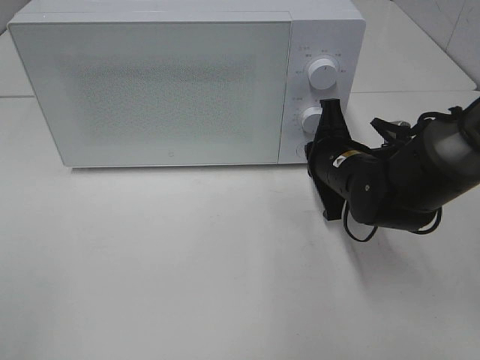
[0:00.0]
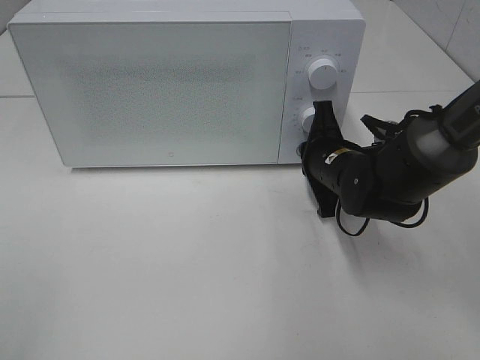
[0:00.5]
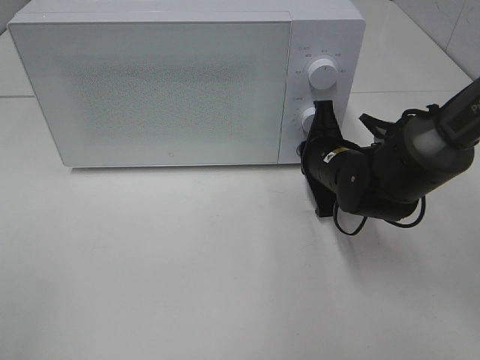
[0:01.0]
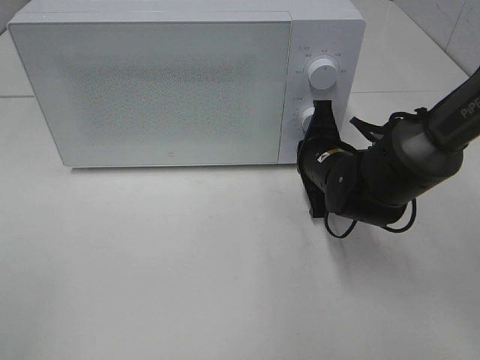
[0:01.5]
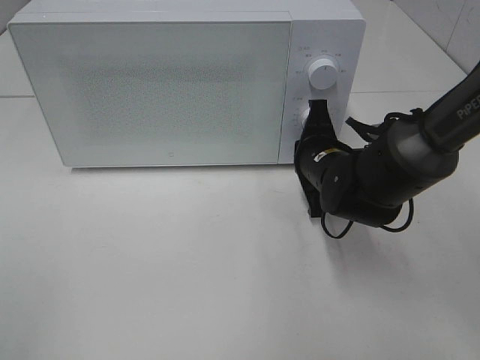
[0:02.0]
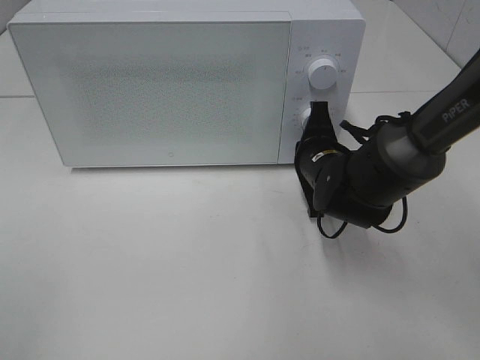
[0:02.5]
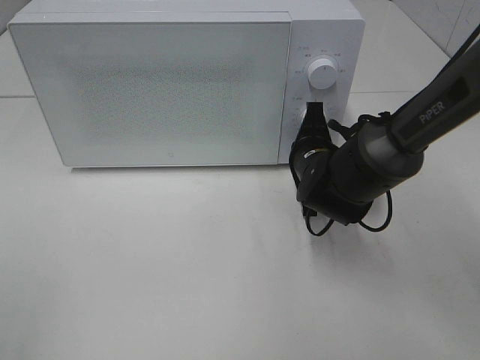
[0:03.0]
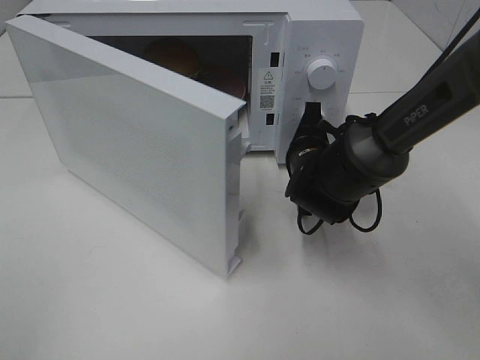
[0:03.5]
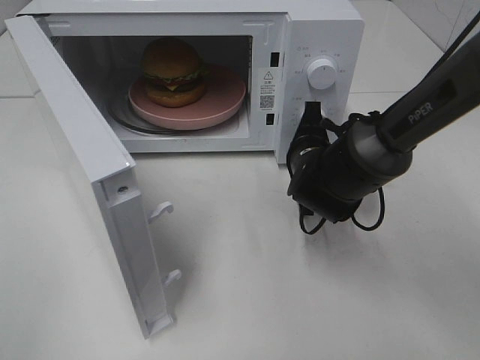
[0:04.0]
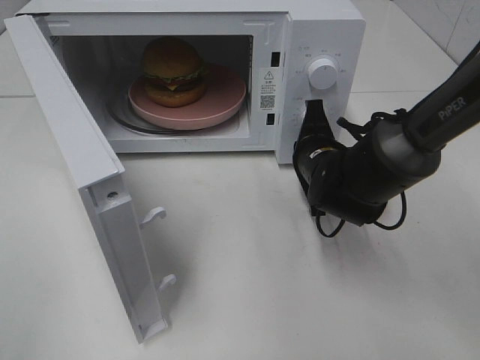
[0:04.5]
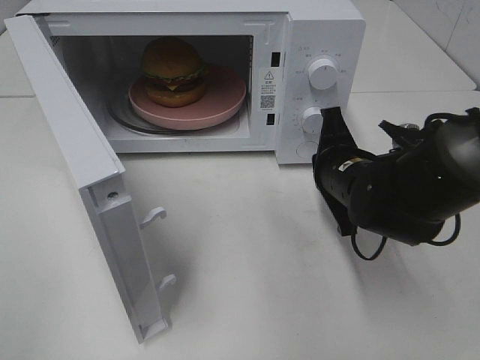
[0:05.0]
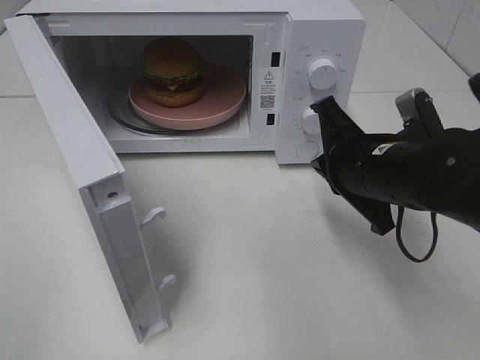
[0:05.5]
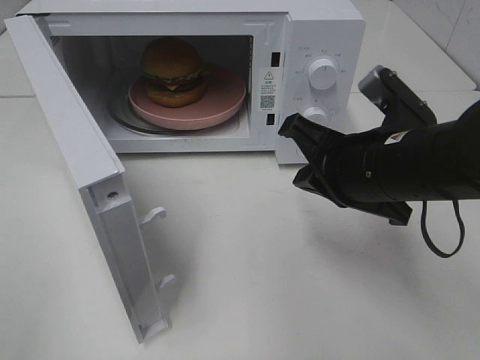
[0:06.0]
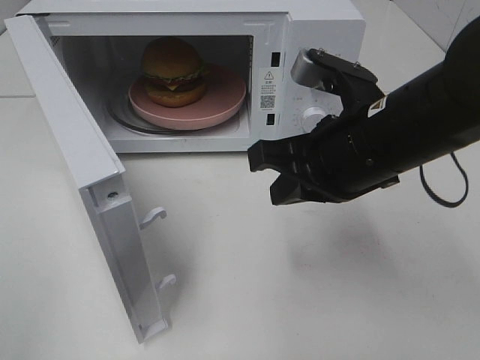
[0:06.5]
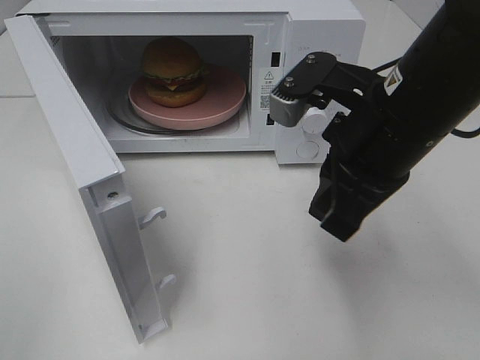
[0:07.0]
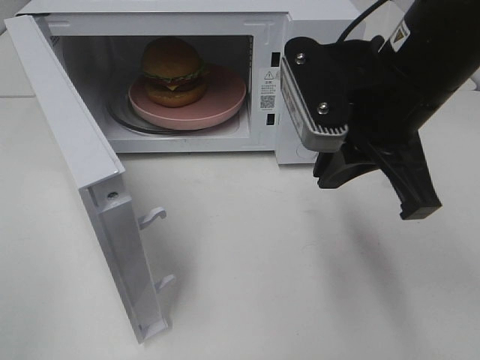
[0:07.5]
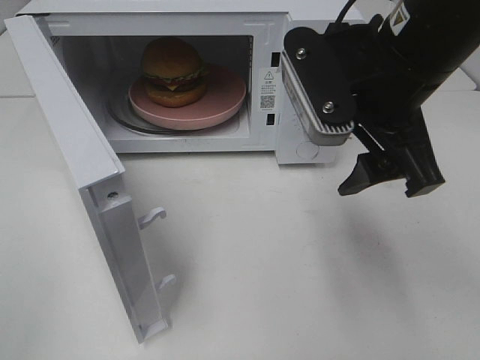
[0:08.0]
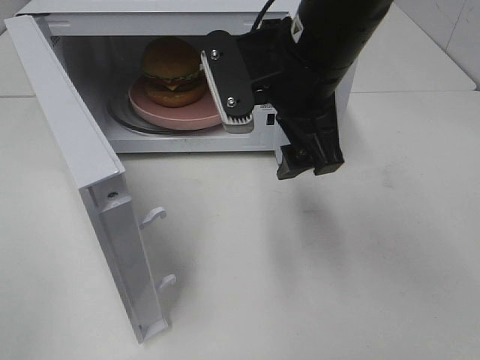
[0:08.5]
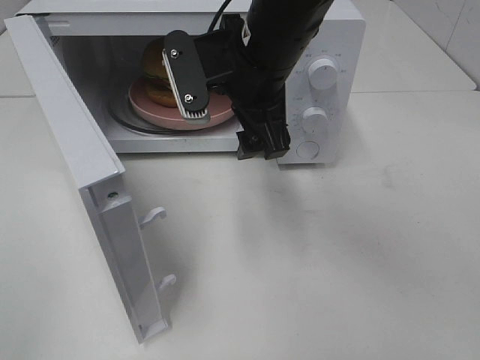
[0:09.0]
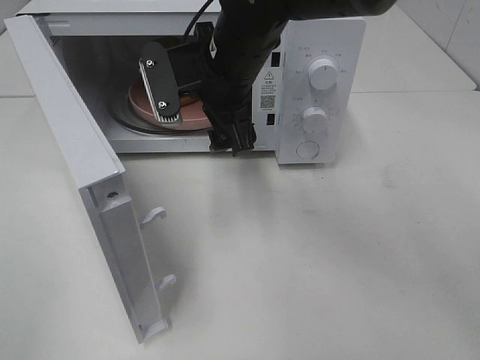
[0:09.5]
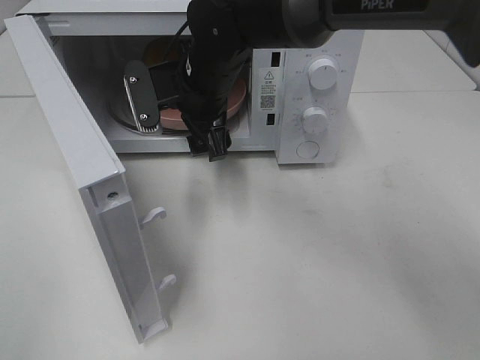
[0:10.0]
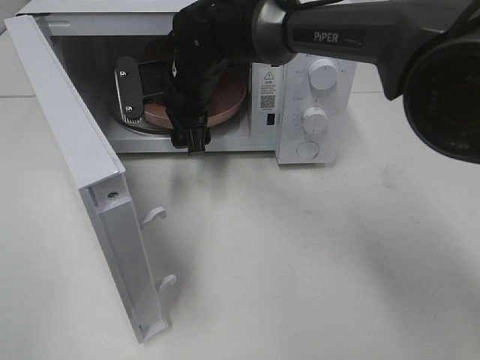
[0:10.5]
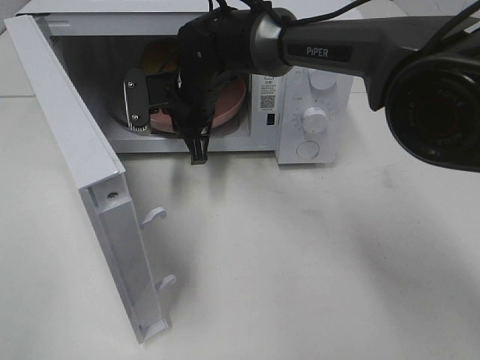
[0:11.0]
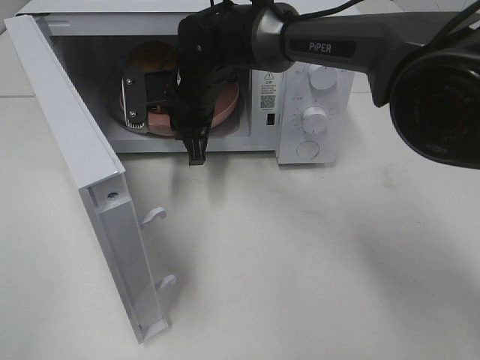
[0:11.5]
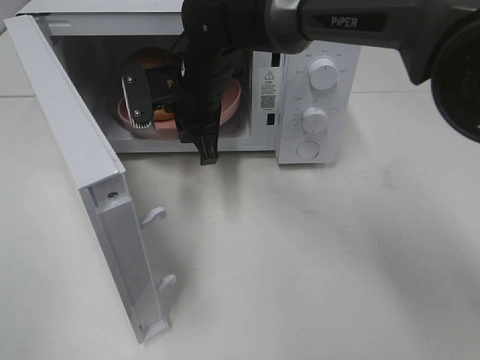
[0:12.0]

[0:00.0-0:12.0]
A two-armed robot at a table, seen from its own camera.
Task of the whole recording: Heat the burger.
Step, 0:00.0 to 0:04.5: Right hand: press the switch.
Step, 0:05.0 to 0:11.0: Right hand: grab the plate with the hamburger.
0:00.0 to 0:02.0: The grippers stay close to where they were, moving slightly.
0:04.0 to 0:06.0: The right gripper travels backward and upward by approximately 15 cm.
0:06.0 to 0:08.0: The right gripper moves upward, some 10 cm, and opens its fingers.
0:08.0 to 0:10.0: The right gripper goes some 20 cm to the left, forward and downward.
0:10.0 to 0:12.0: The right gripper closes its fingers.

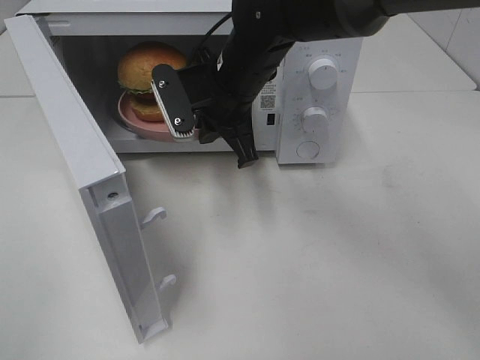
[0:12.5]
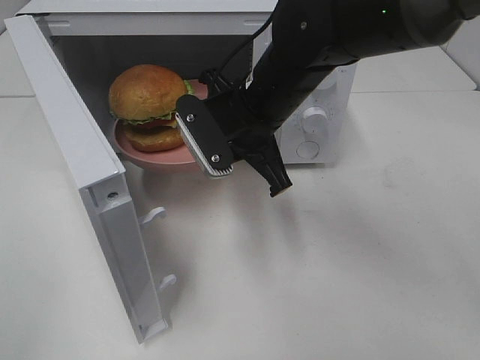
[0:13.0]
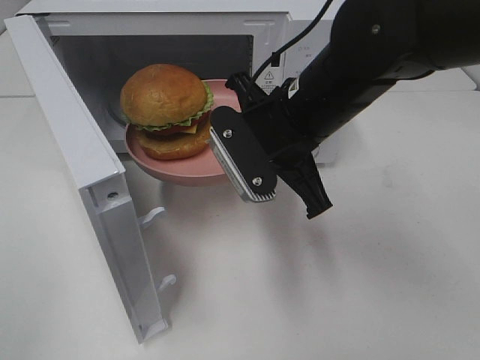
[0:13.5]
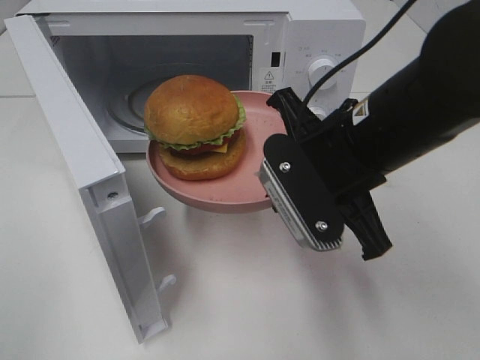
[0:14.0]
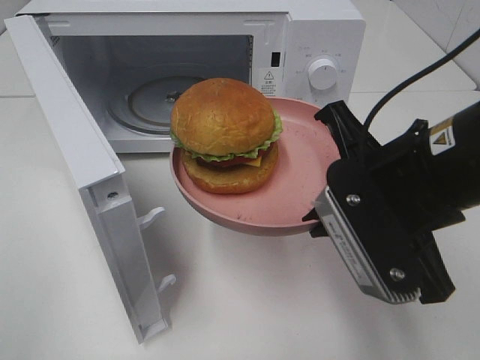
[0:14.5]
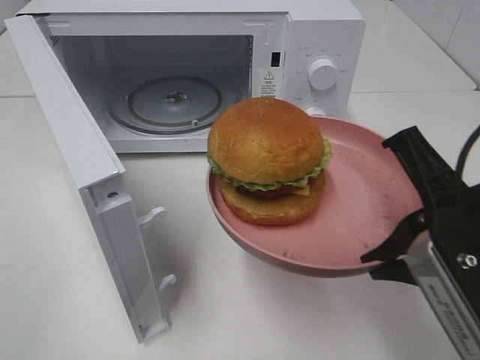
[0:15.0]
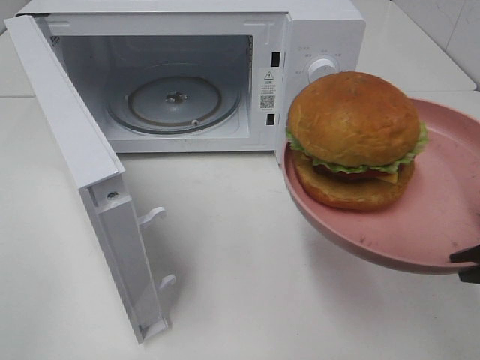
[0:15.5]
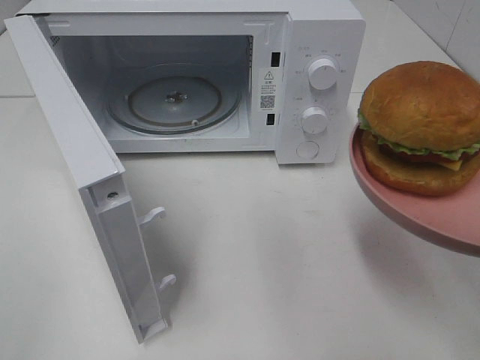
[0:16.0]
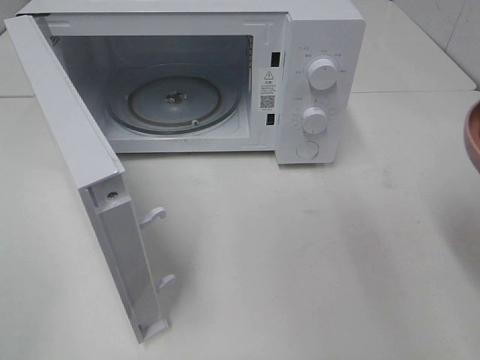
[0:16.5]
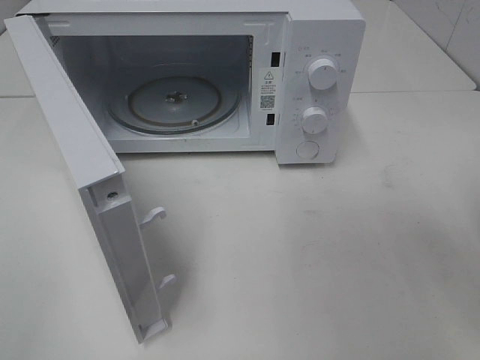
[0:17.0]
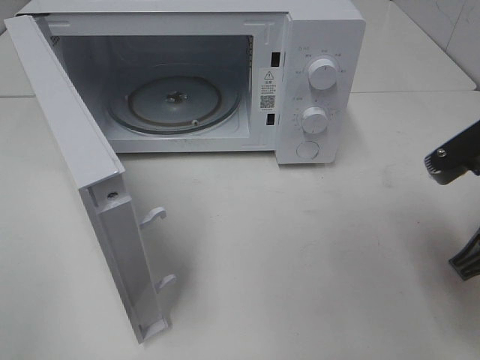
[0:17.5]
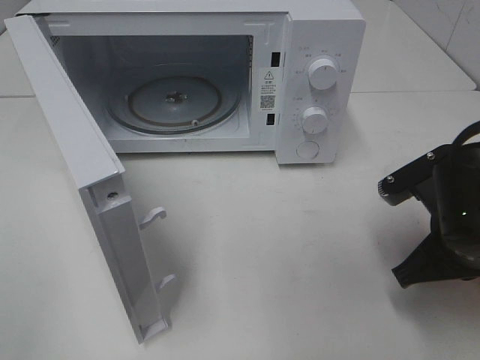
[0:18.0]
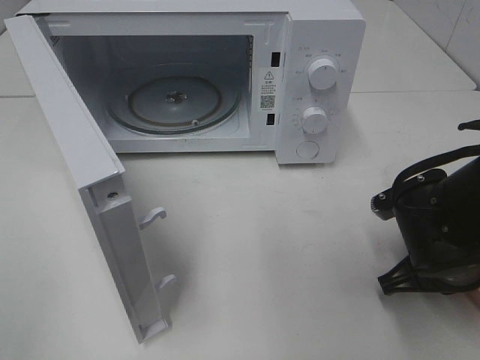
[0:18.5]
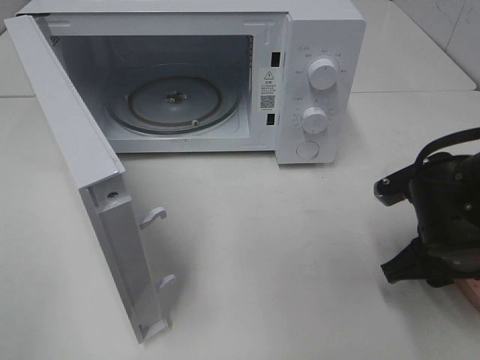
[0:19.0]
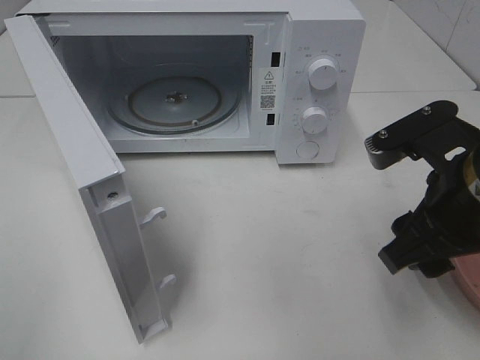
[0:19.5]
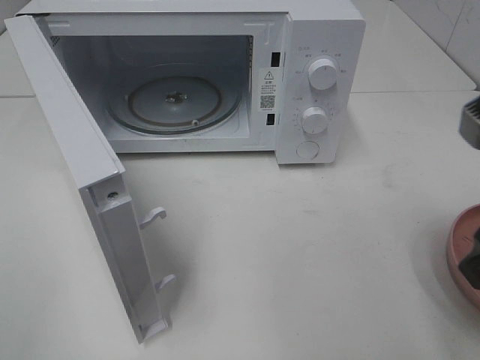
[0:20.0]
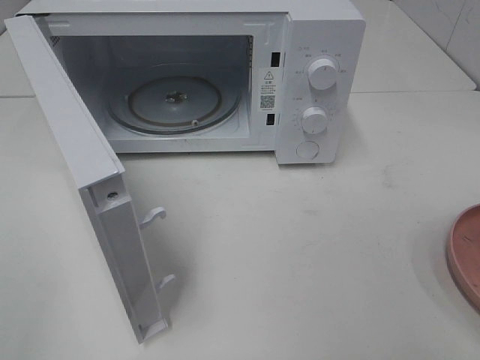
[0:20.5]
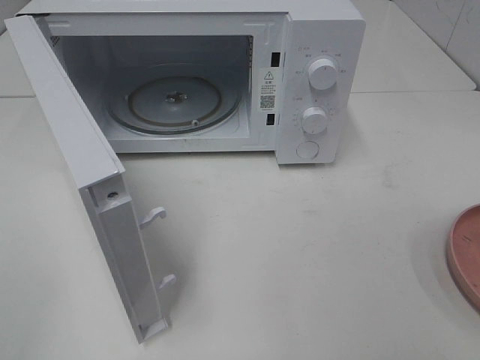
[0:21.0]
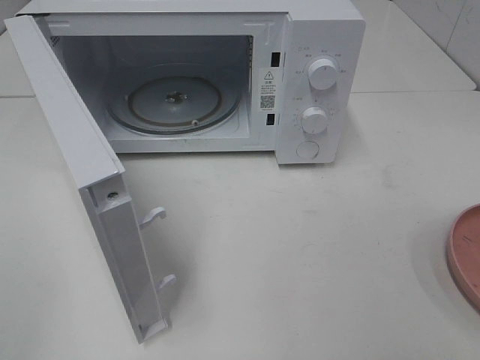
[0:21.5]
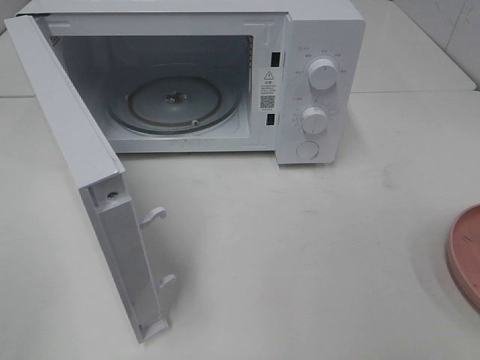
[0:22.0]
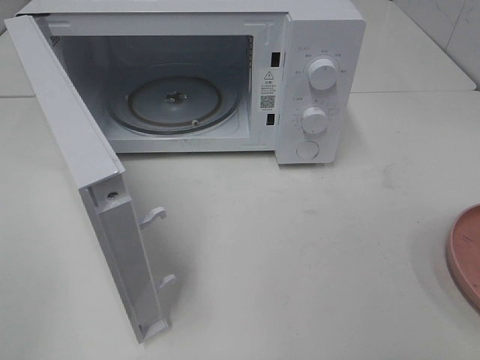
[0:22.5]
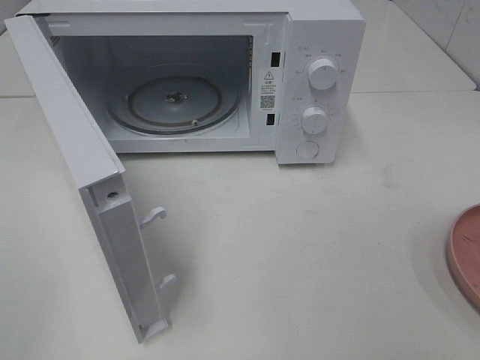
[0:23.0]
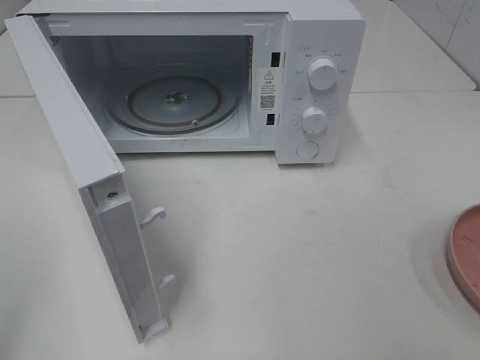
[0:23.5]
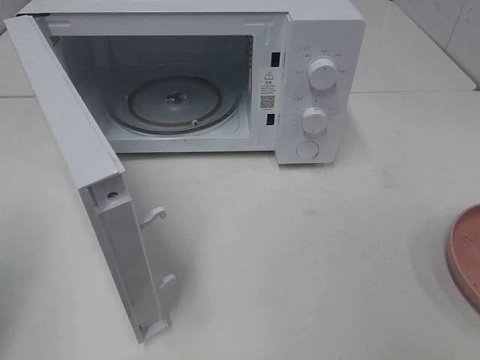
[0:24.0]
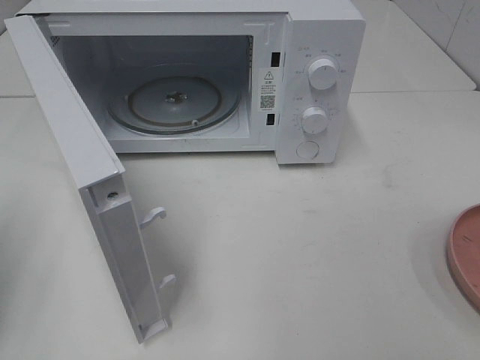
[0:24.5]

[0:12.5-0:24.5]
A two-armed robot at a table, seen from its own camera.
Task of the whole recording: Heat the burger.
Step, 0:12.5 to 0:18.5: Right hand: place the plate on the table.
0:12.5 to 0:14.5: The right gripper travels backward and to the right by approximately 25 cm.
0:14.5 to 0:16.5: The right gripper heads to the right and backward, covering some 15 cm.
0:16.5 to 0:18.5: The right gripper travels downward and forward by approximately 20 cm.
0:18.5 to 0:20.5: The right gripper goes approximately 25 cm upward and backward, and opens its fingers.

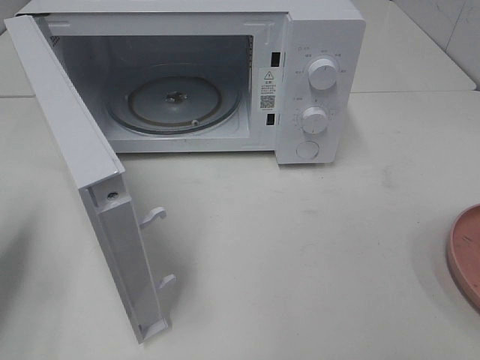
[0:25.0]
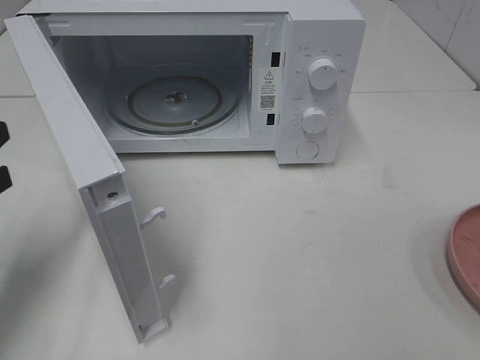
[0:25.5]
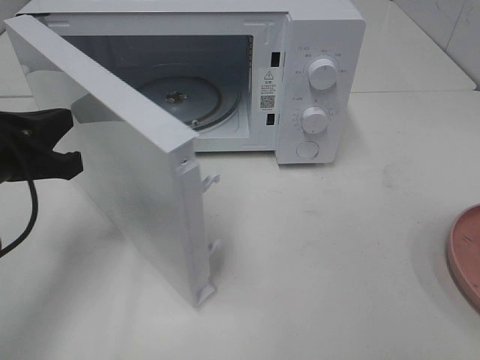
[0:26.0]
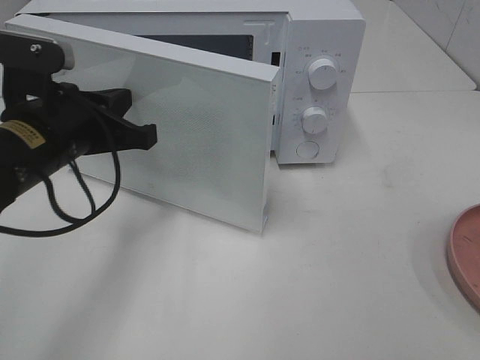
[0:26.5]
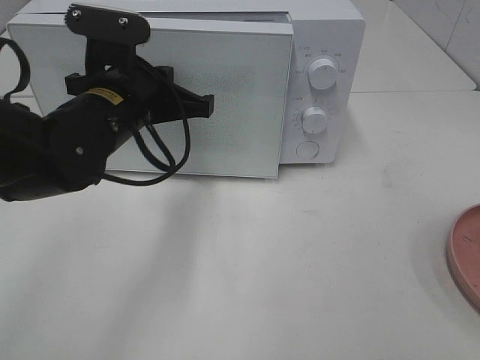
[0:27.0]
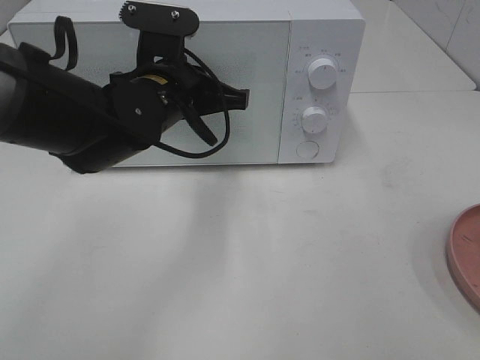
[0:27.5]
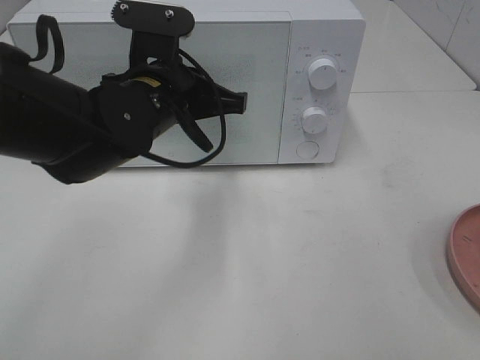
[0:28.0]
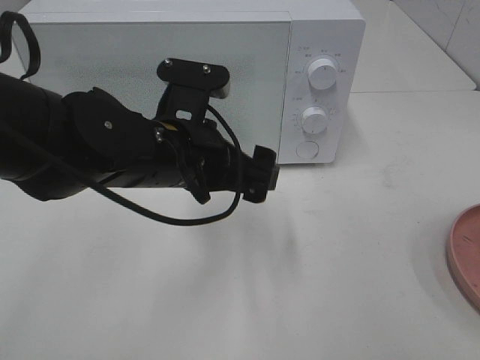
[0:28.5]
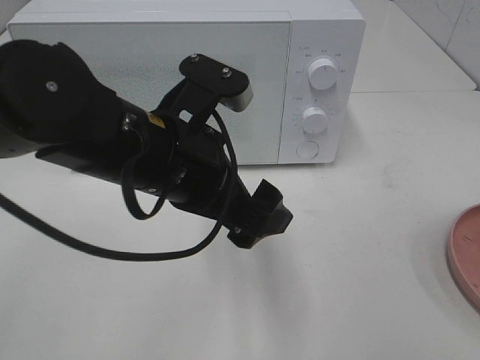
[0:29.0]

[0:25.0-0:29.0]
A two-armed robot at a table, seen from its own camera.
Task of the whole recording: Heat the burger.
Step, 0:25.0 to 0:28.0: Left hand: close the microwave door.
0:25.0 to 0:27.0: The left gripper is displaced to the right and forward by roughly 25 cm.
0:27.0 to 0:29.0: The left gripper goes about 10 cm backward and to the right, and opens its fingers.
